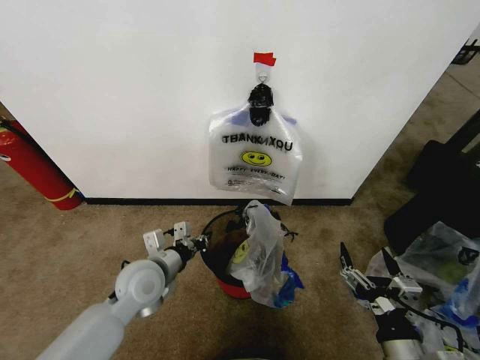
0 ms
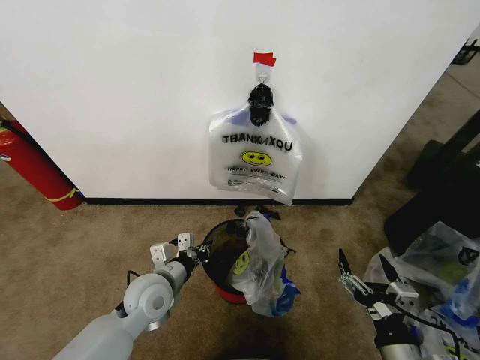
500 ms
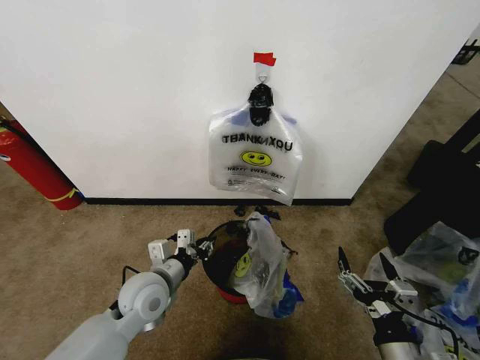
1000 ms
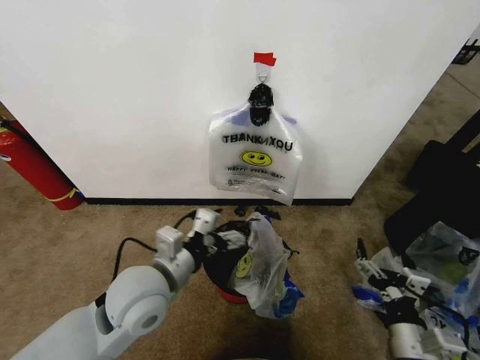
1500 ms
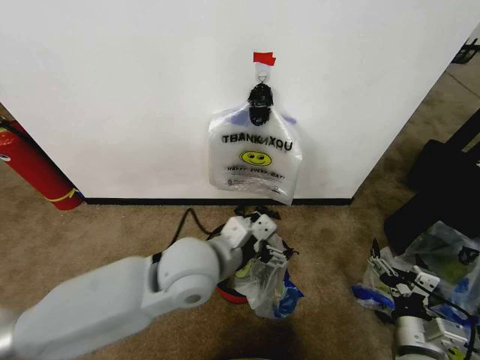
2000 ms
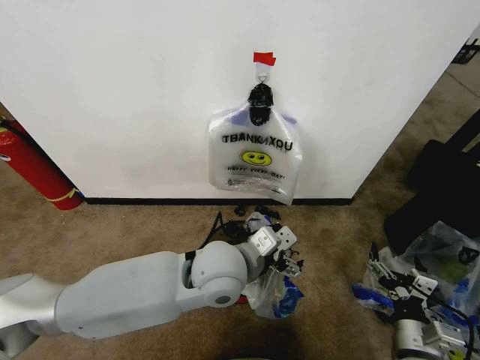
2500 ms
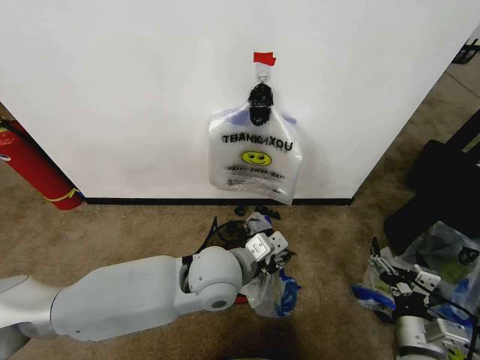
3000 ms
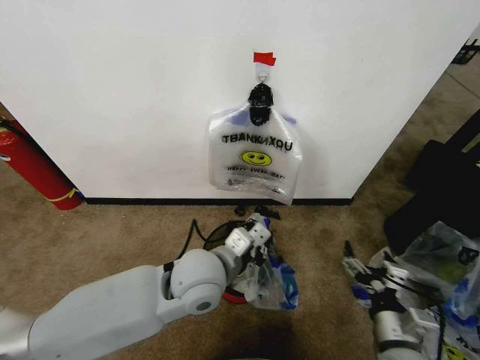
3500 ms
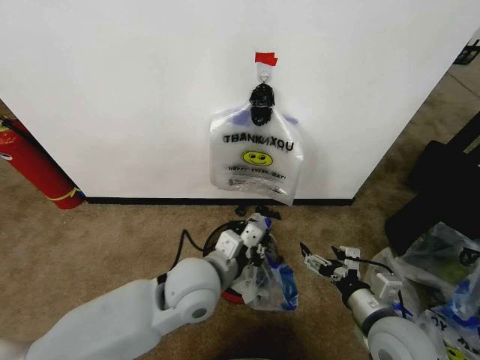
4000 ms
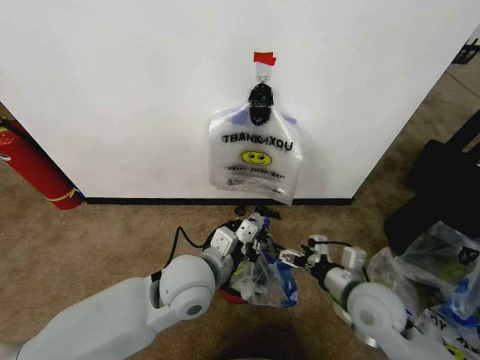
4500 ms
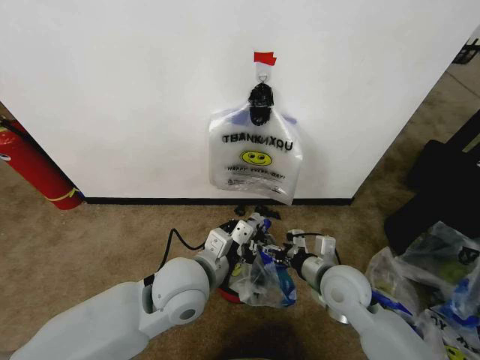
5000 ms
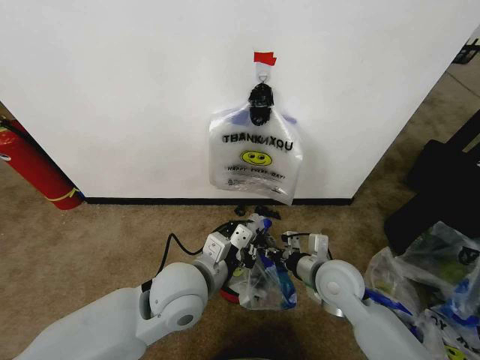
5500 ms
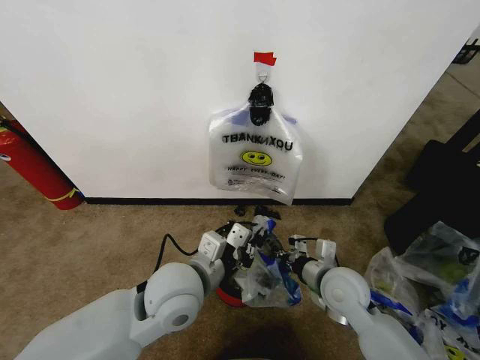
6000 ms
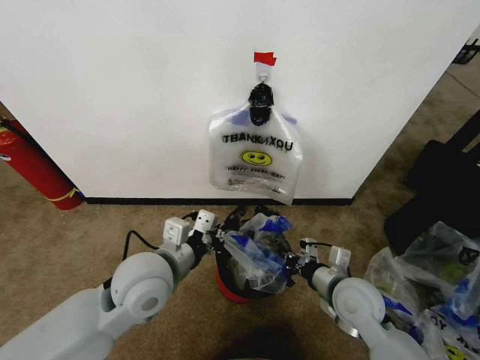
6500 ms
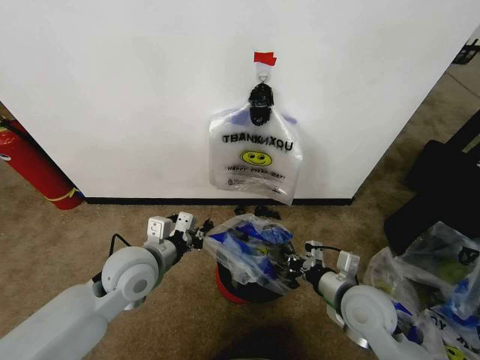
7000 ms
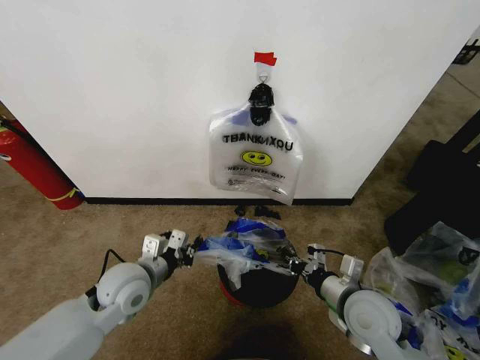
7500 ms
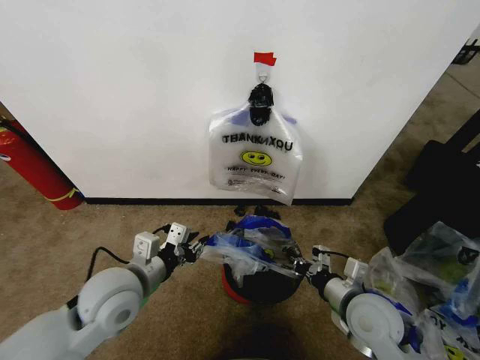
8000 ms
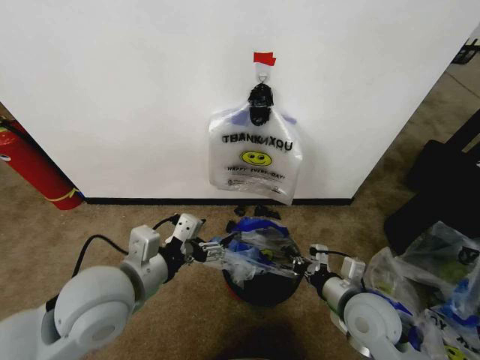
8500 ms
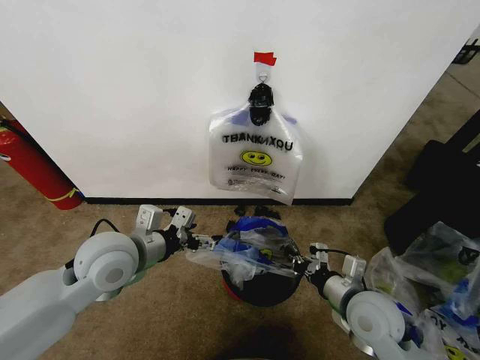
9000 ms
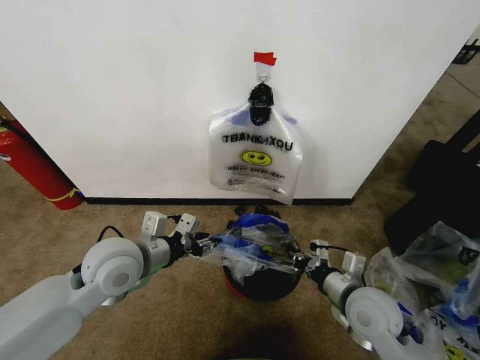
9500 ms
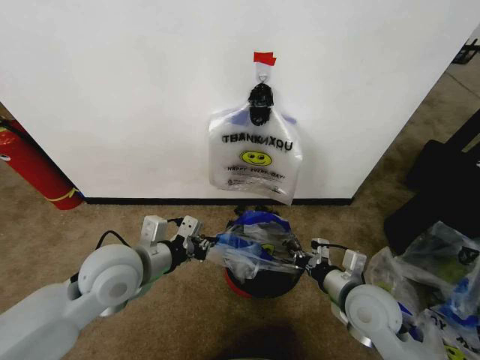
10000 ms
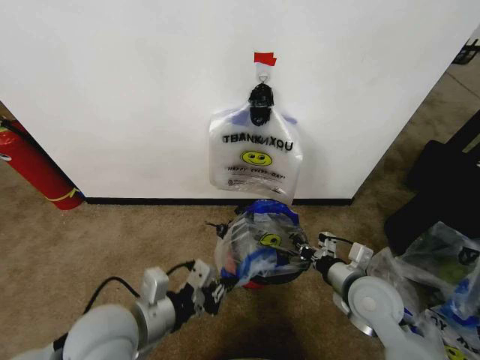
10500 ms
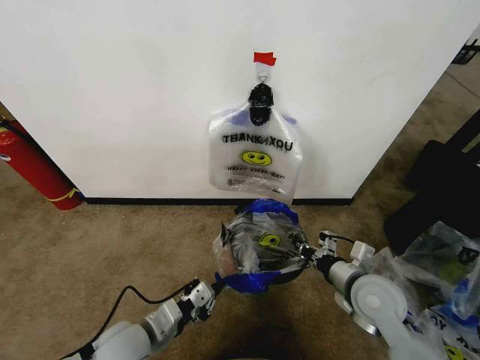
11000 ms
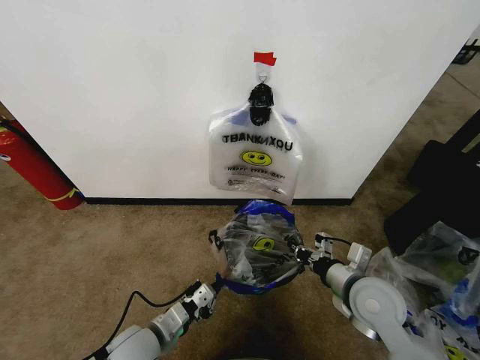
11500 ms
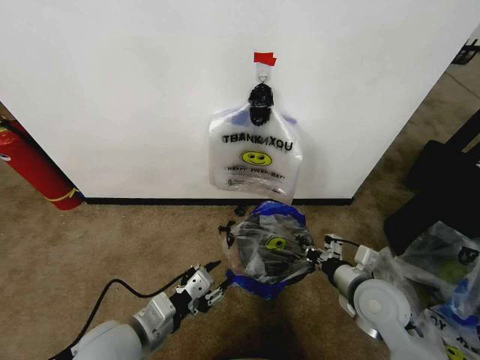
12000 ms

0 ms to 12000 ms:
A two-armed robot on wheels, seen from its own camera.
Task of the whole recording: Pick up the garbage bag from the wall and place it over the trash bin.
0 ms to 2000 ms: The right gripper moves approximately 5 cm; the left gripper travels to the right and upward by about 20 cm, and opens up.
2000 ms to 4000 ms: The right gripper ends up about 10 cm from where it was. Meanwhile the left gripper goes some 5 cm downward, and closes.
4000 ms to 6000 ms: The right gripper travels forward and to the left by about 10 cm, and closes its fingers.
6000 ms to 8000 ms: The right gripper is displaced backward by roughly 5 cm. Meanwhile the left gripper goes about 10 cm to the left.
8000 ms to 10000 ms: The left gripper goes backward and returns, about 5 cm each way, and opens, then closes again.
10000 ms to 12000 ms: The left gripper goes approximately 15 cm backward and downward, and opens.

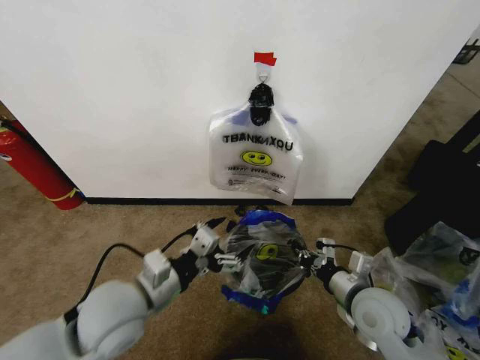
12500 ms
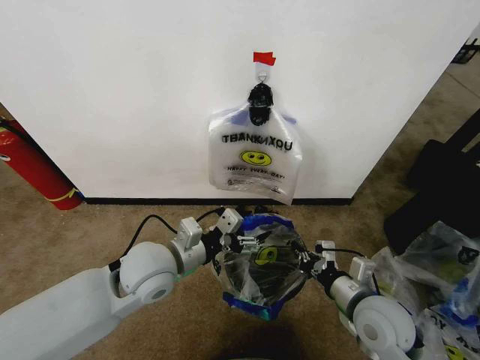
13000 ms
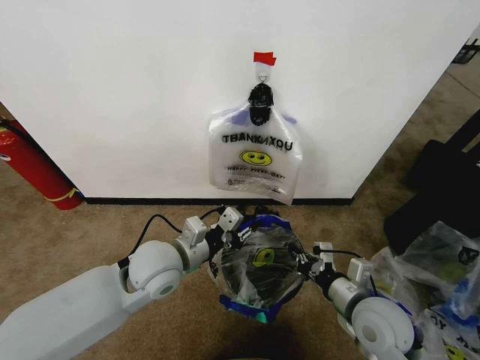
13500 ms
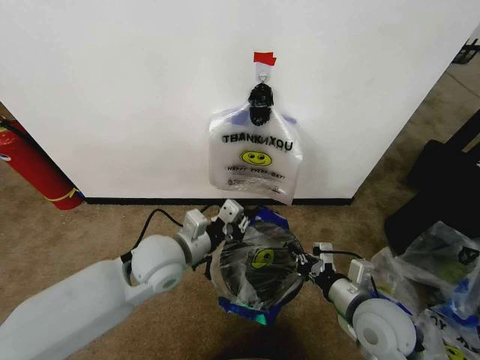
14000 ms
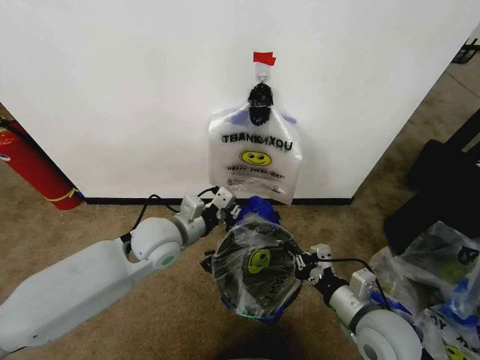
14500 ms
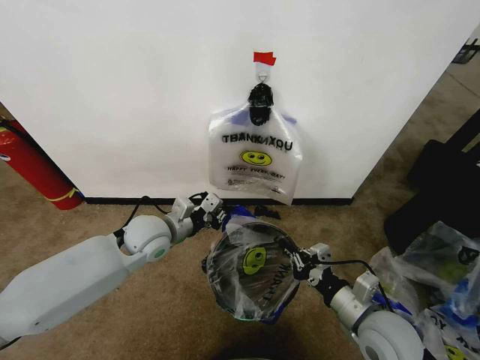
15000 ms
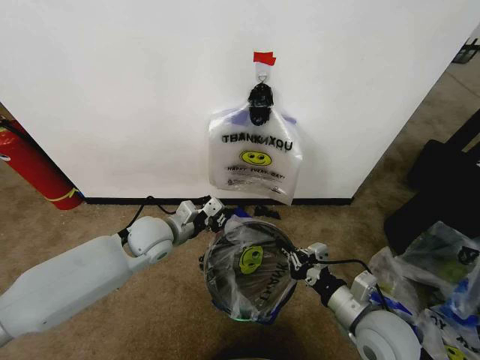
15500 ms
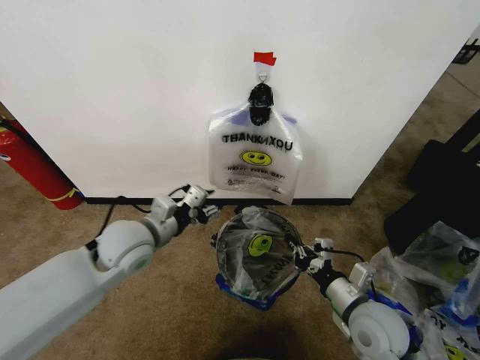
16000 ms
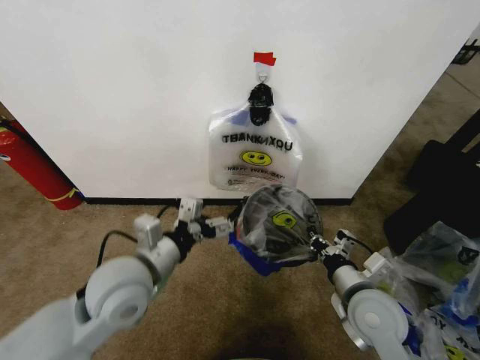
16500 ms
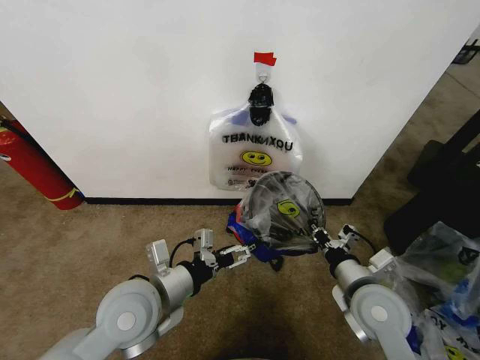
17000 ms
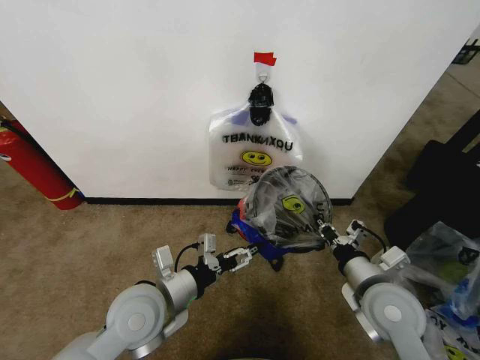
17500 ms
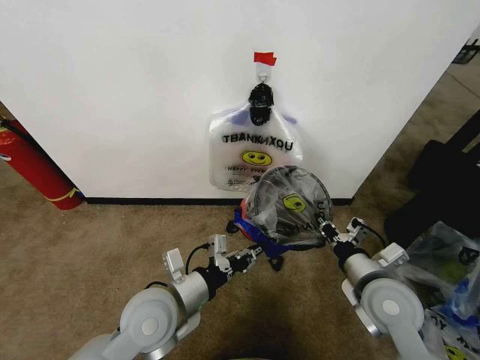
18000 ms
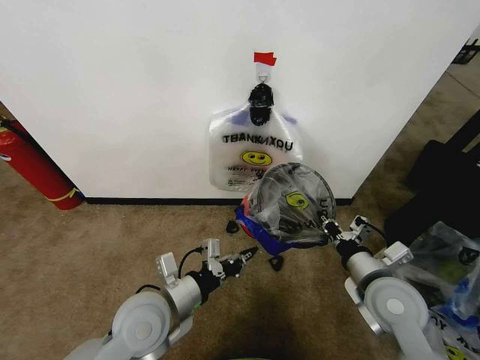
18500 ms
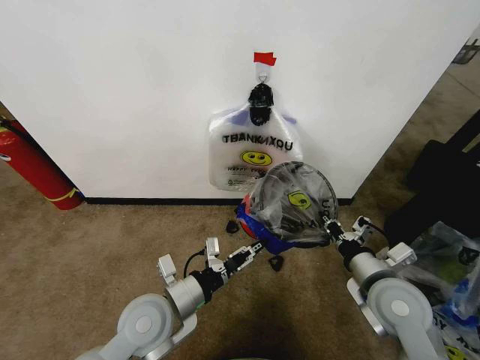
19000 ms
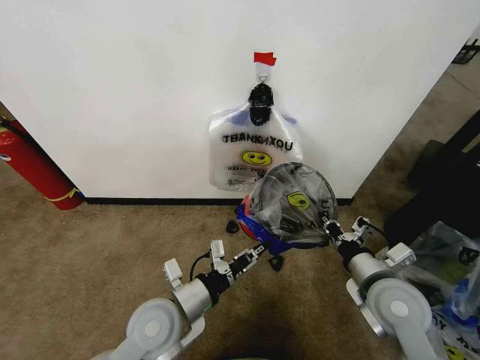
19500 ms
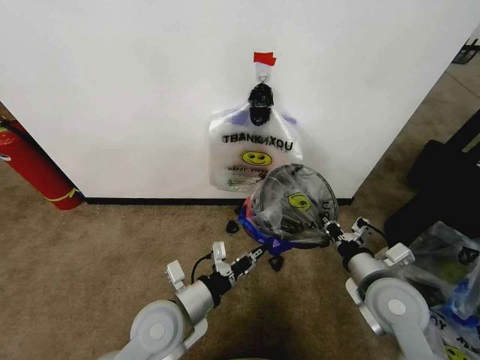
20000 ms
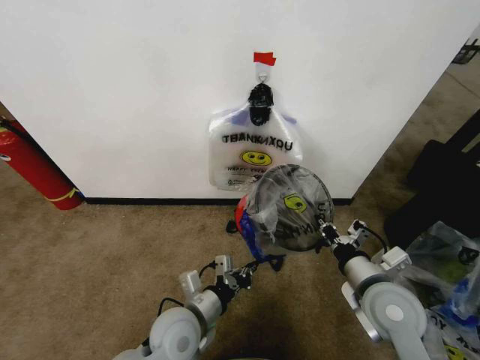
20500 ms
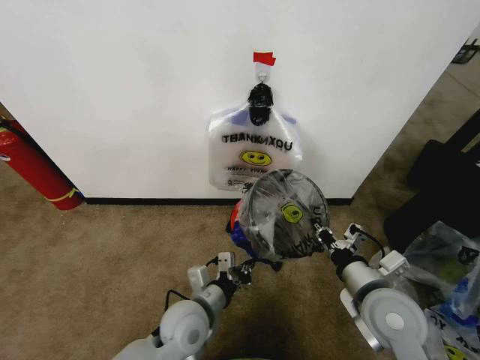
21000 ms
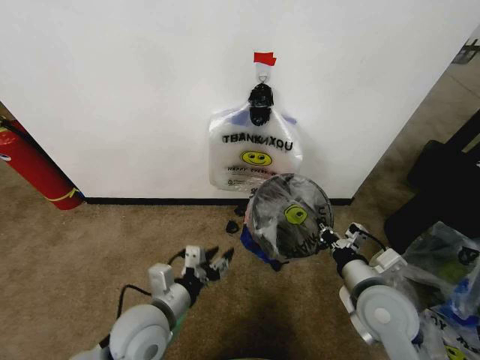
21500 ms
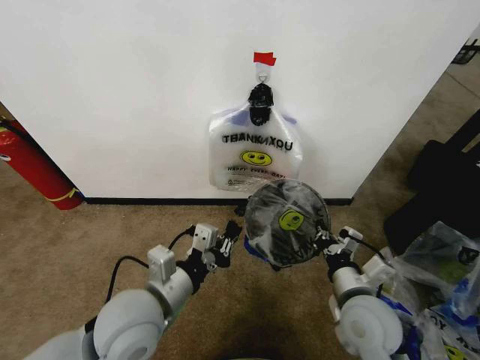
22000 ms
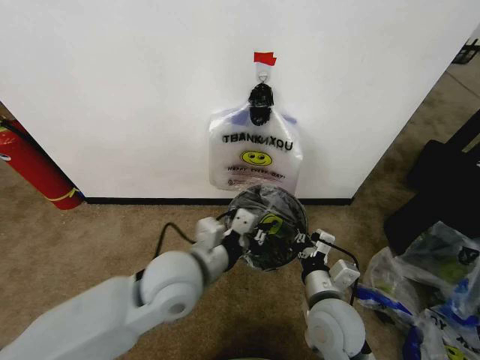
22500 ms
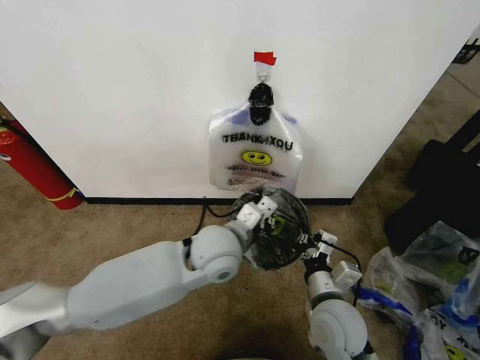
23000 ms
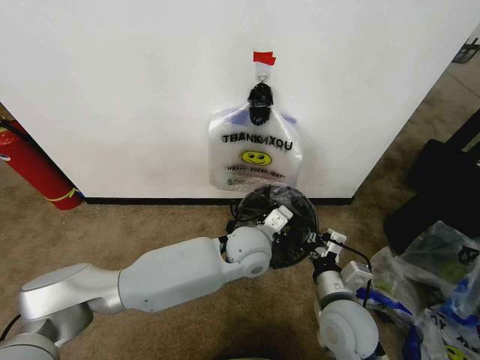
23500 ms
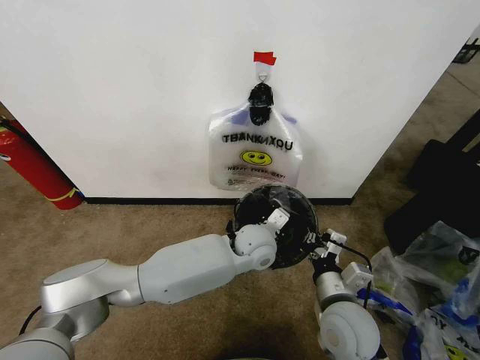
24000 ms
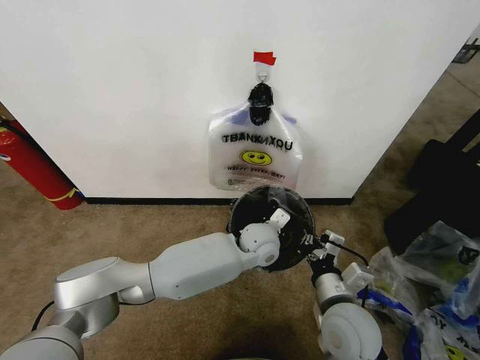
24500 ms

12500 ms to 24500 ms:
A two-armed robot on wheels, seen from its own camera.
Task of the whole recording: Pick up the garbage bag from the wall and place it over the trash bin.
12500 ms to 14500 ms: The left gripper goes roughly 15 cm forward, and closes its fingers.
14500 ms to 16500 ms: The left gripper shifts approximately 10 cm backward, and opens up.
16500 ms to 18500 ms: The left gripper goes about 5 cm downward, and closes its fingers.
18500 ms to 20500 ms: The left gripper moves downward, approximately 5 cm, and opens, then closes once more.
20500 ms to 22500 ms: The right gripper heads to the left, covering about 10 cm; the left gripper is displaced upward by approximately 15 cm, and opens and closes again.
22500 ms to 24500 ms: The left gripper is displaced to the right, forward and downward by approximately 25 cm.

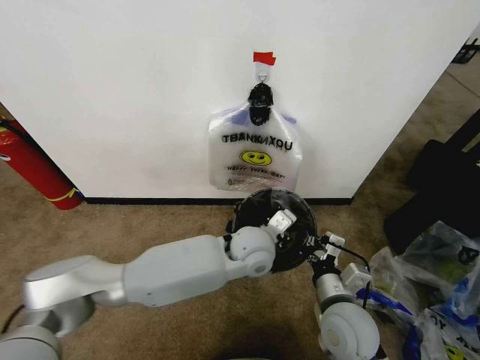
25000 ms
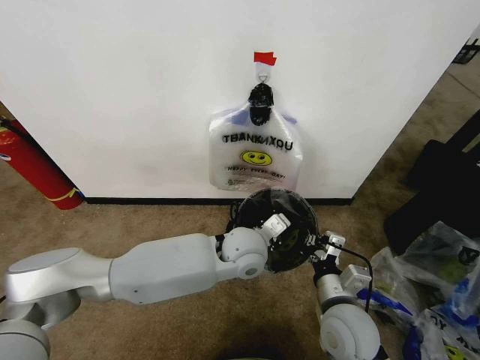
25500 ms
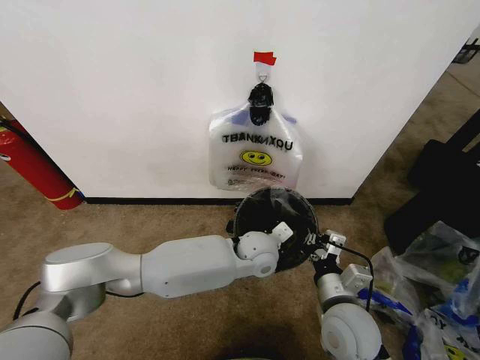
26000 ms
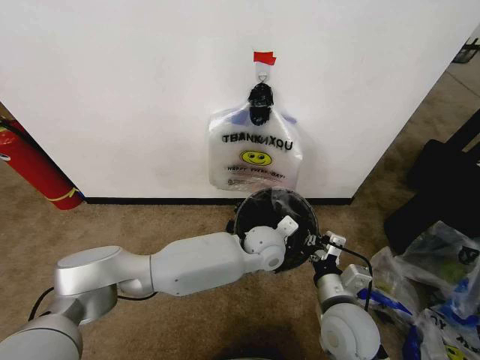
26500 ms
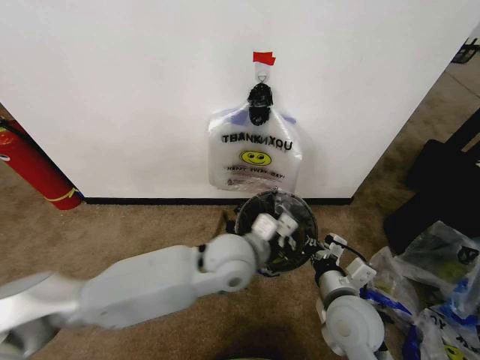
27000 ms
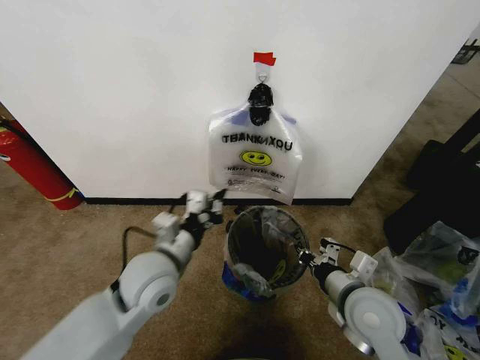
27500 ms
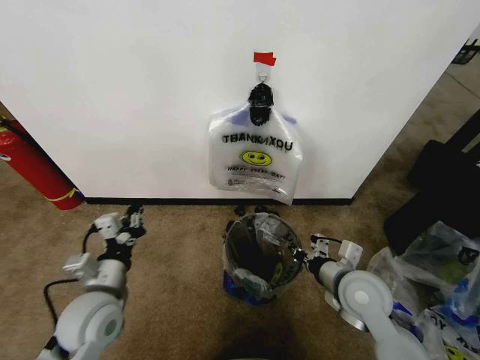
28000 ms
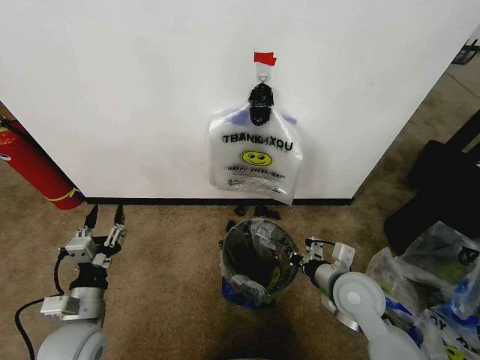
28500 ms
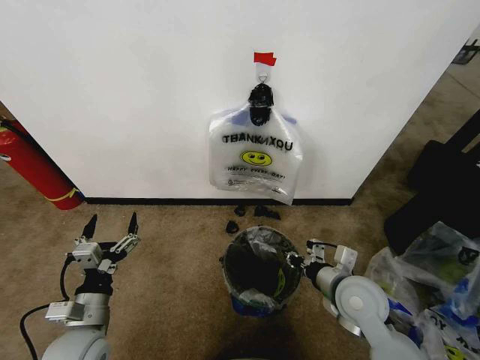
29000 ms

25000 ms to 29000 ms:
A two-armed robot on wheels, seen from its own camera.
Task of the whole recording: Pick up the garbage bag from the wall and place it over the trash bin.
25000 ms to 27000 ms: The left gripper shifts by about 5 cm.
27000 ms to 29000 ms: The left gripper goes roughly 35 cm to the left, backward and downward, and opens; the right gripper ends up approximately 5 cm from where it was.
